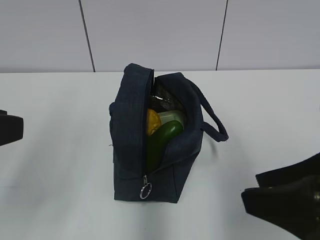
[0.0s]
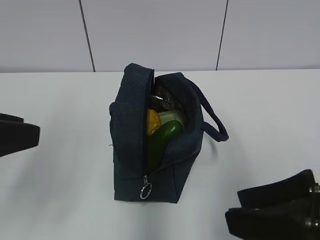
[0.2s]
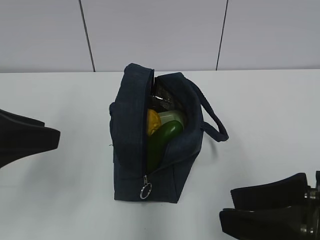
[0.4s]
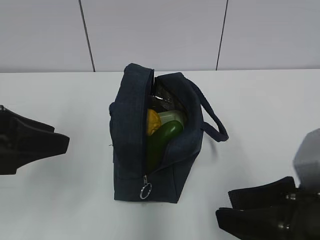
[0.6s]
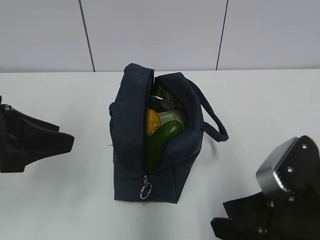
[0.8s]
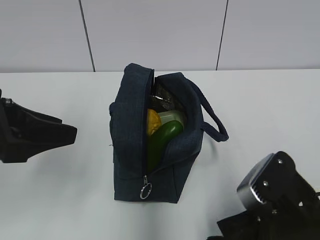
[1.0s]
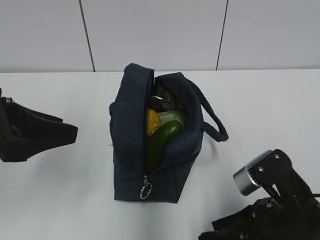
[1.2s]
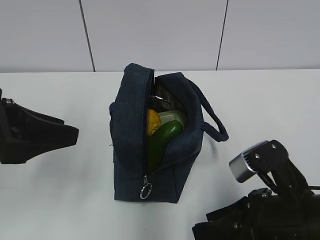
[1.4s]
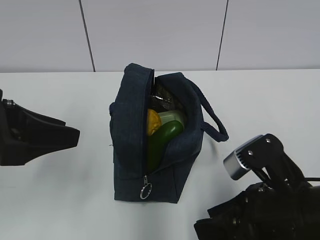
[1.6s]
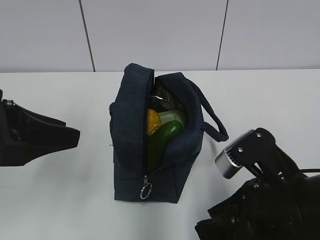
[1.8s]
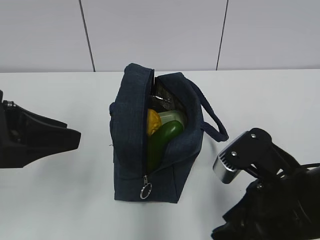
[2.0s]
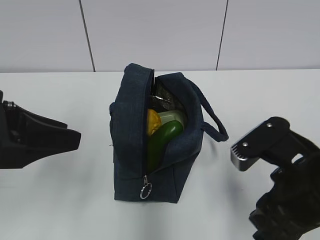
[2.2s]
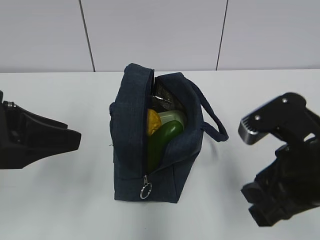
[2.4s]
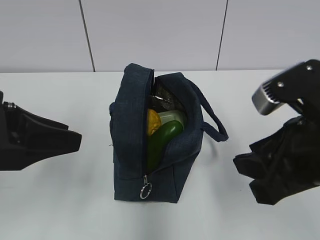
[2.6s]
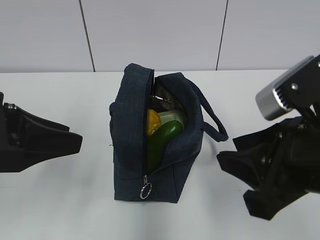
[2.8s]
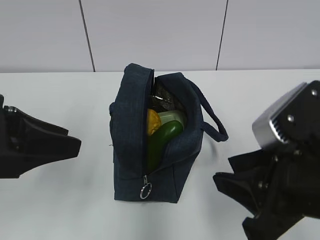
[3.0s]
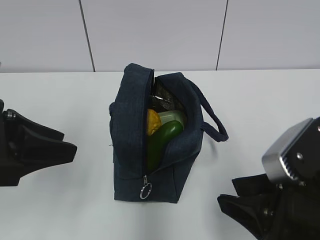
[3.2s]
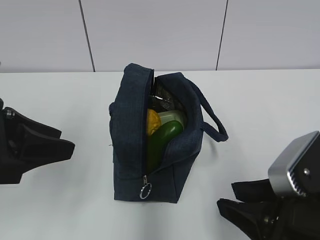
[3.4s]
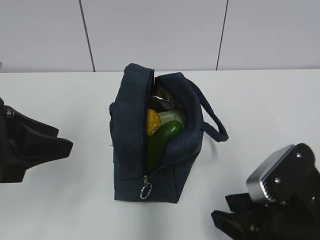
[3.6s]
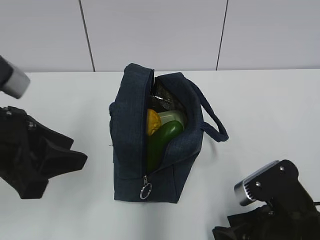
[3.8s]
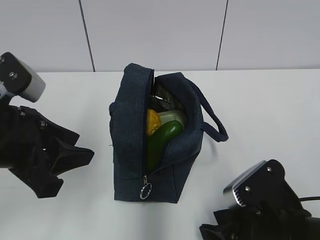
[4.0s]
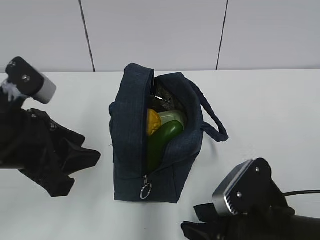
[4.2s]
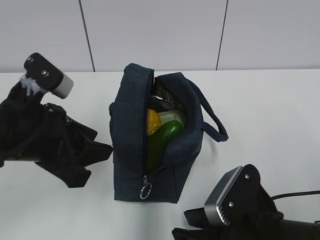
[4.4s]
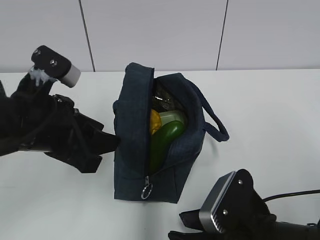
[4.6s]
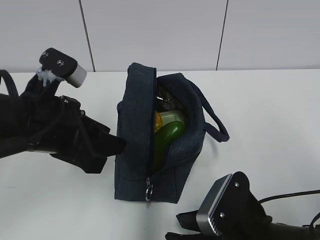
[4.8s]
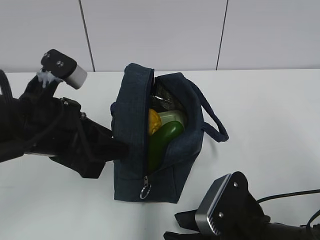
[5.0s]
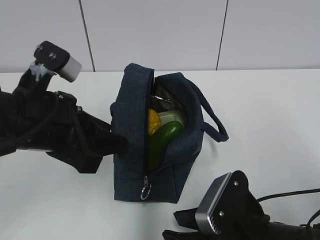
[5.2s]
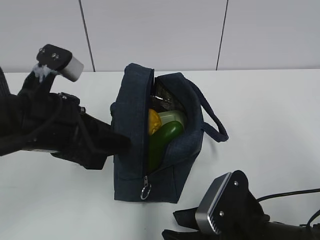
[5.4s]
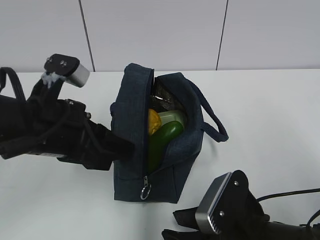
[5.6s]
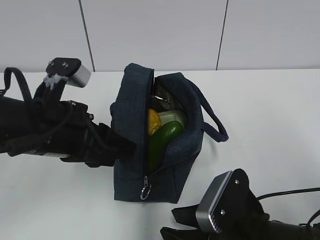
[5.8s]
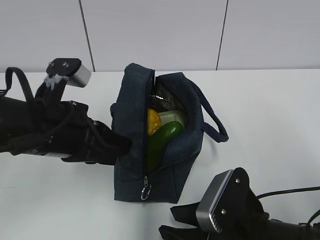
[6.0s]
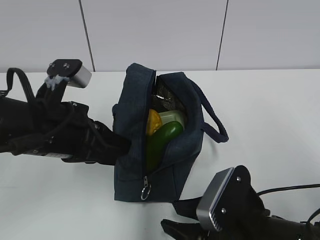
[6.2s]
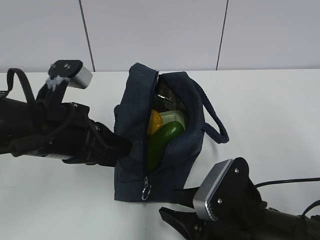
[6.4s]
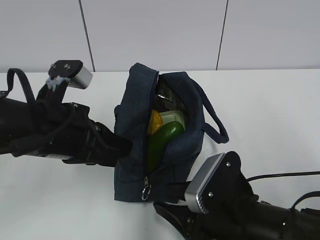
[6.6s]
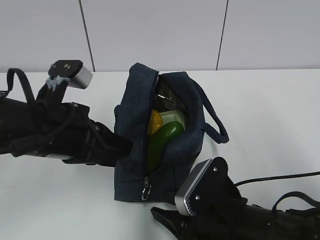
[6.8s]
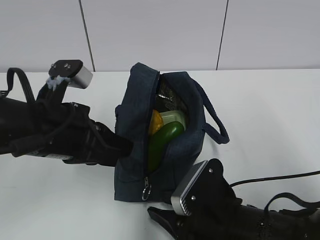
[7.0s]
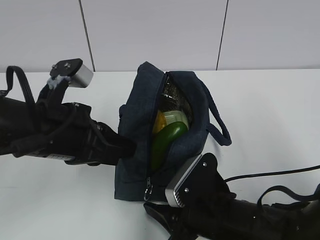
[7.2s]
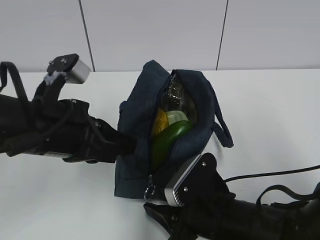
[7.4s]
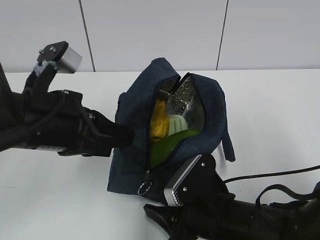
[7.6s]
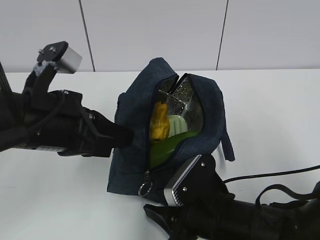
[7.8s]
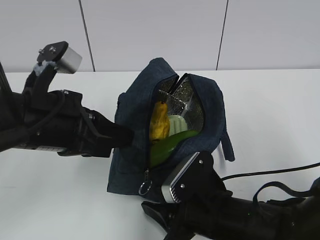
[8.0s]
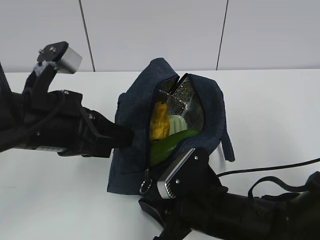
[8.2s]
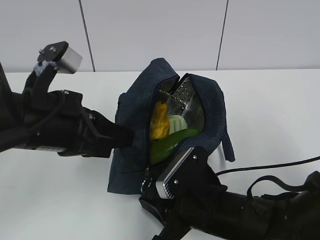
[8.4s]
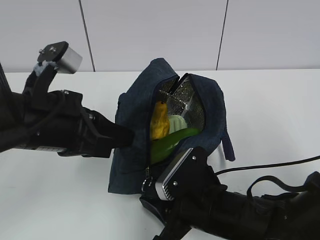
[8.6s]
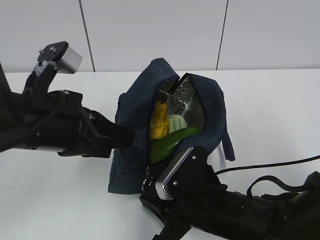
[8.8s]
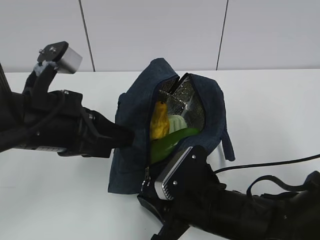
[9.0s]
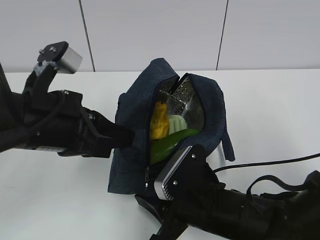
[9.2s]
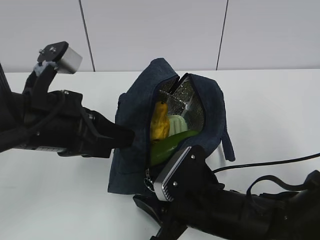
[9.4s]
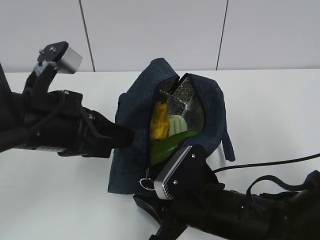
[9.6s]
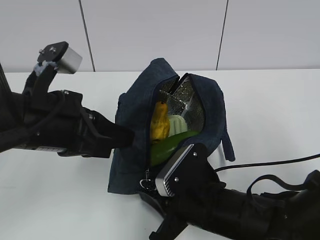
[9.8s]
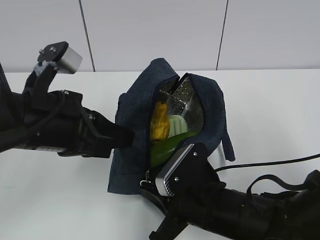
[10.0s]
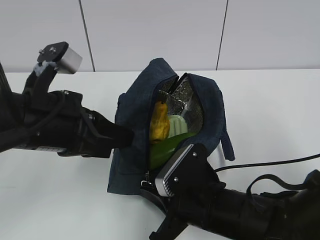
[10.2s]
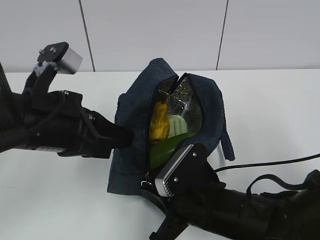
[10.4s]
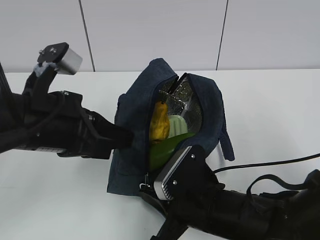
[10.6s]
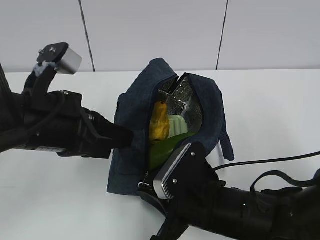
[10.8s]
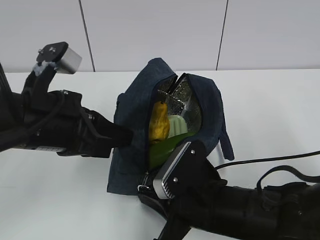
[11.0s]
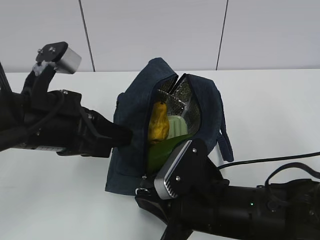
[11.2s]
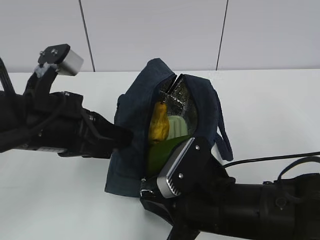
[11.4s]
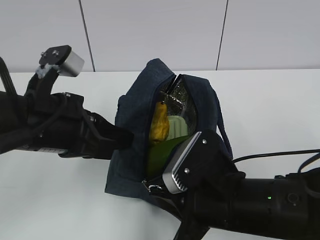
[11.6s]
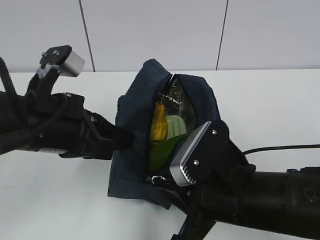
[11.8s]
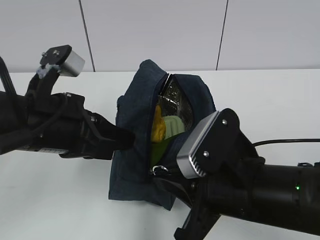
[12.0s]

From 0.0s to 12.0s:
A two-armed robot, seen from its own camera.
Step, from 0.0s to 6.0s: Grab the lunch bag with your left hand.
From 0.0s to 1.6s: The right gripper goes some 10 cm downward. The left gripper goes about 5 cm forward.
From 1.6s to 3.0s: The right gripper shifts about 5 cm upward.
From 3.0s to 4.4s: The left gripper moves roughly 5 cm; the right gripper shifts some 10 cm downward.
From 4.4s to 6.0s: The left gripper closes up.
From 6.0s to 7.6s: The right gripper ends up some 5 cm from where it was.
From 7.6s to 9.0s: The grippers stay close to where they were, moving slightly.
From 9.0s to 10.4s: The right gripper closes.
From 10.4s to 12.0s: The right gripper shifts approximately 10 cm upward.

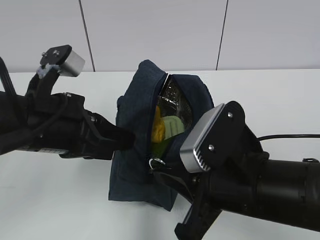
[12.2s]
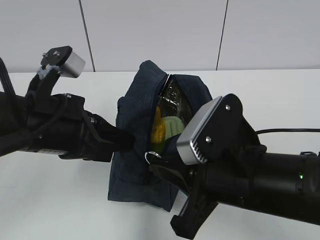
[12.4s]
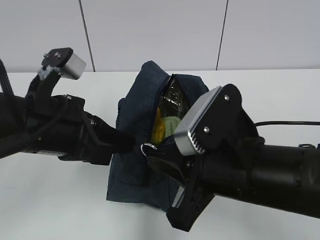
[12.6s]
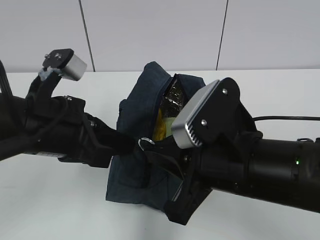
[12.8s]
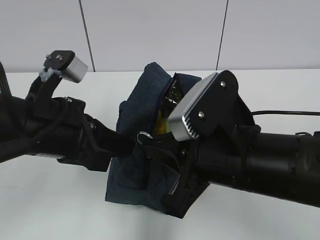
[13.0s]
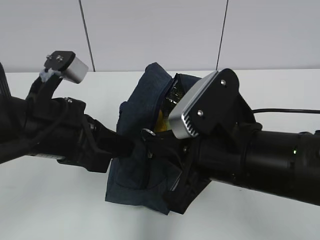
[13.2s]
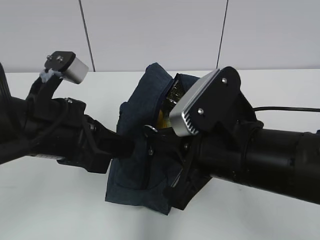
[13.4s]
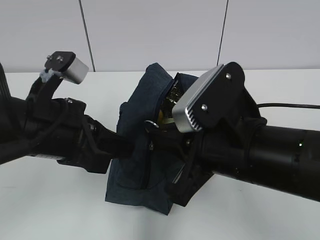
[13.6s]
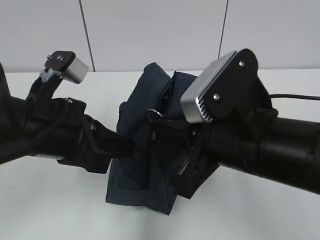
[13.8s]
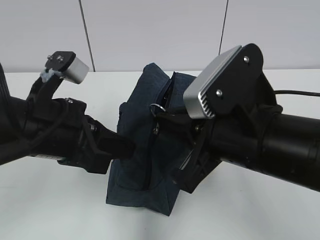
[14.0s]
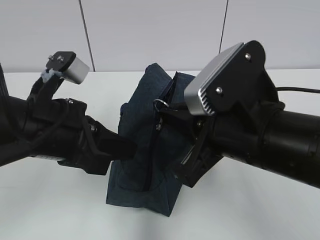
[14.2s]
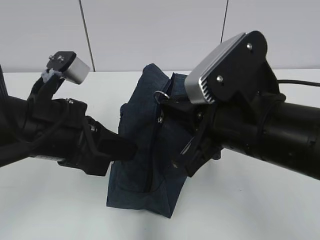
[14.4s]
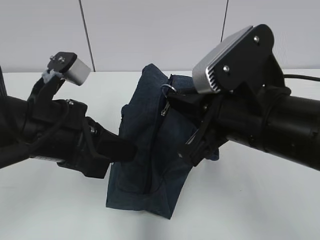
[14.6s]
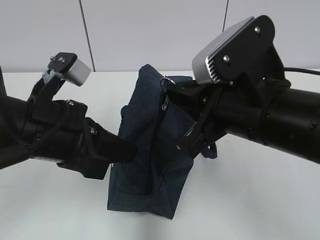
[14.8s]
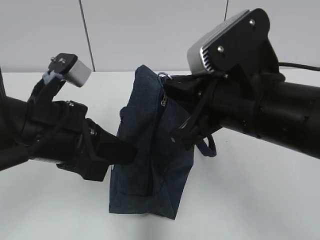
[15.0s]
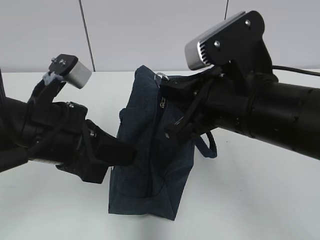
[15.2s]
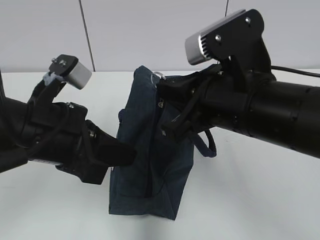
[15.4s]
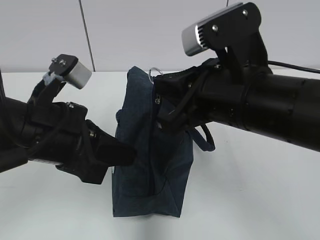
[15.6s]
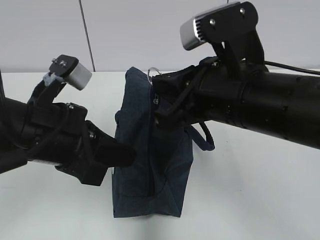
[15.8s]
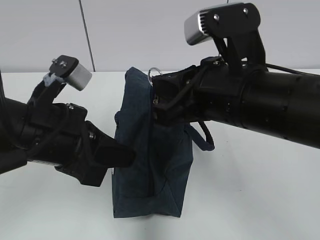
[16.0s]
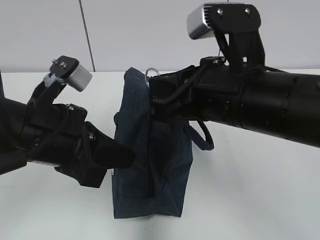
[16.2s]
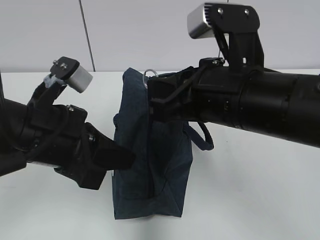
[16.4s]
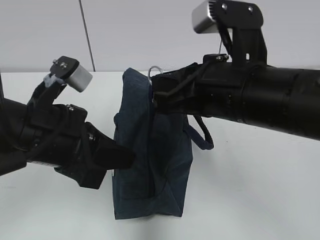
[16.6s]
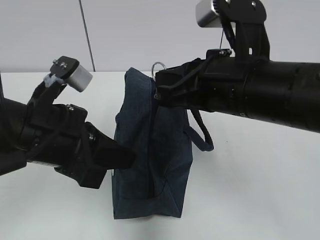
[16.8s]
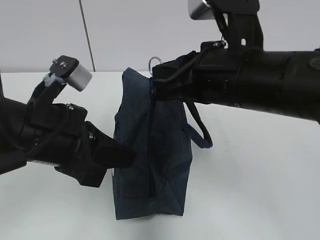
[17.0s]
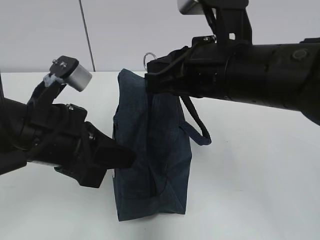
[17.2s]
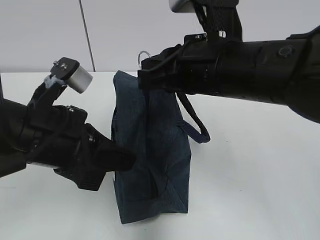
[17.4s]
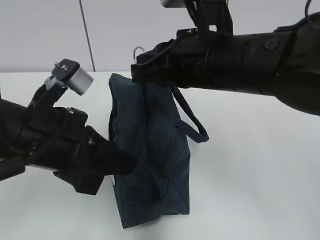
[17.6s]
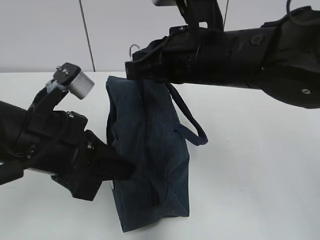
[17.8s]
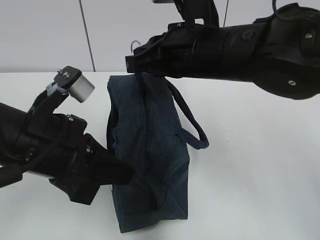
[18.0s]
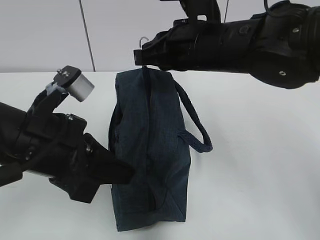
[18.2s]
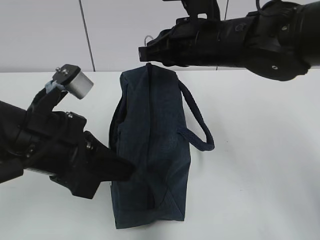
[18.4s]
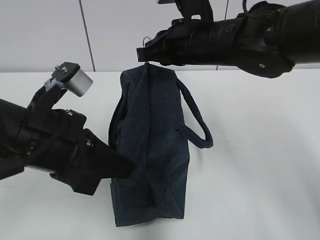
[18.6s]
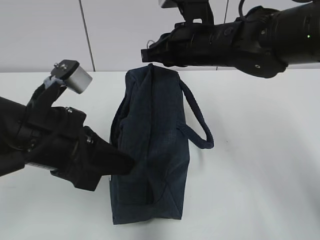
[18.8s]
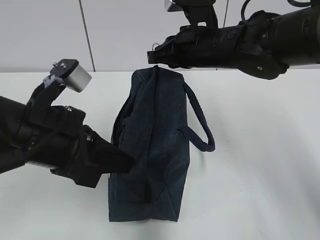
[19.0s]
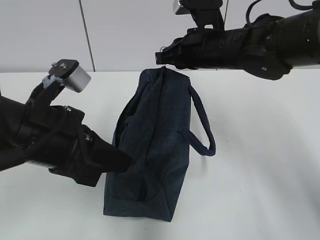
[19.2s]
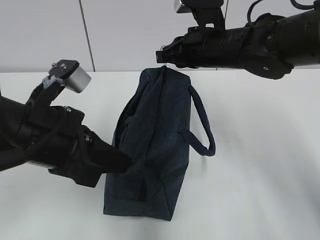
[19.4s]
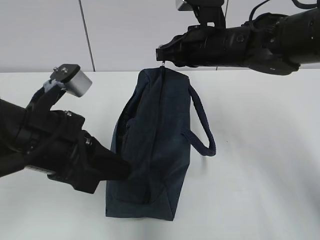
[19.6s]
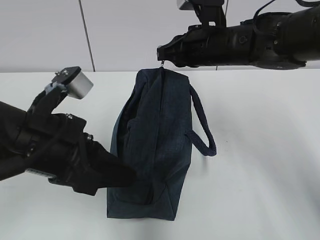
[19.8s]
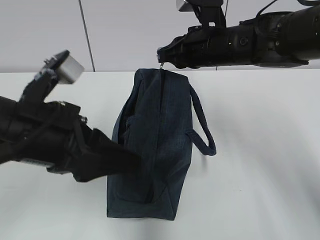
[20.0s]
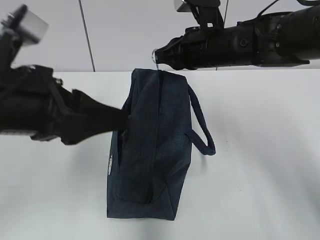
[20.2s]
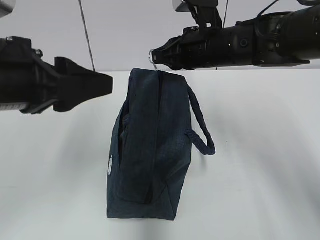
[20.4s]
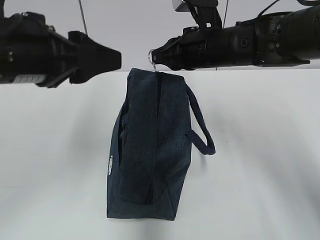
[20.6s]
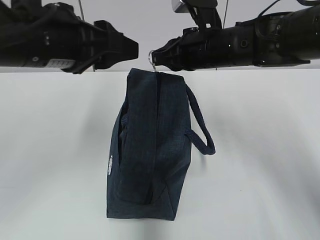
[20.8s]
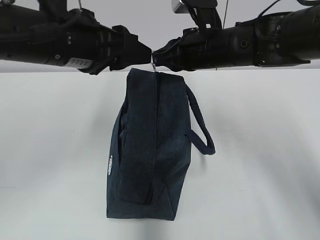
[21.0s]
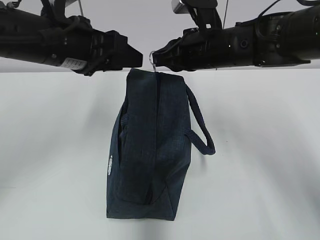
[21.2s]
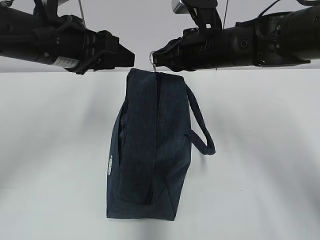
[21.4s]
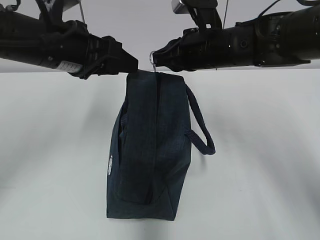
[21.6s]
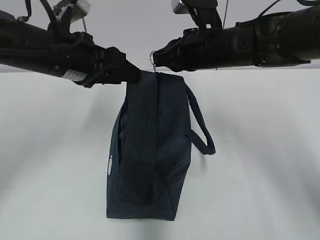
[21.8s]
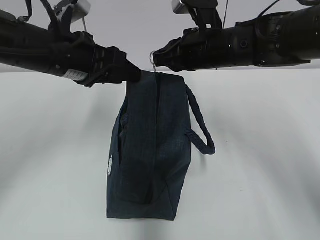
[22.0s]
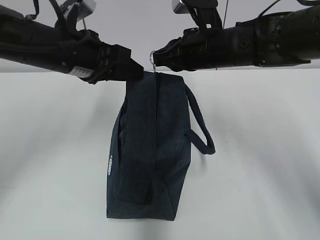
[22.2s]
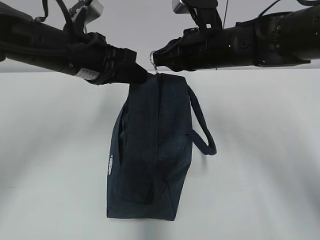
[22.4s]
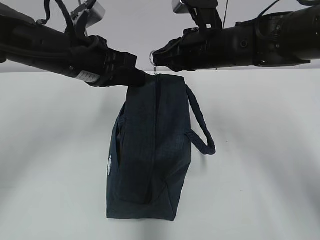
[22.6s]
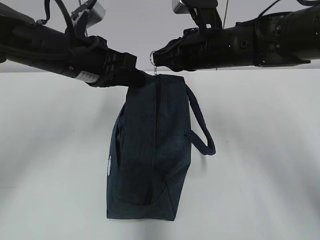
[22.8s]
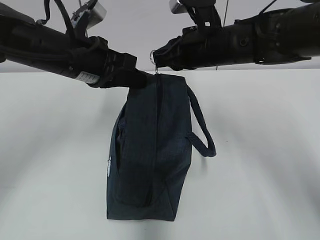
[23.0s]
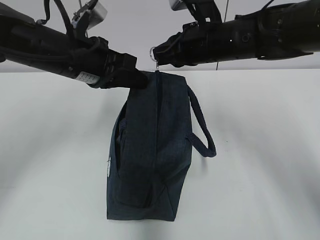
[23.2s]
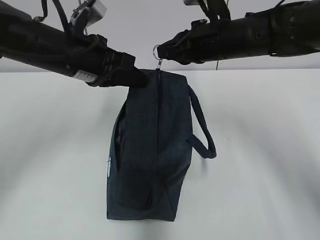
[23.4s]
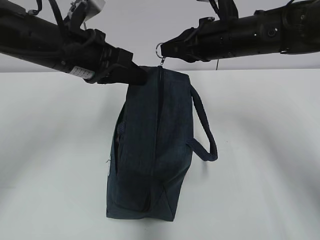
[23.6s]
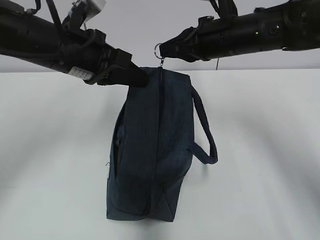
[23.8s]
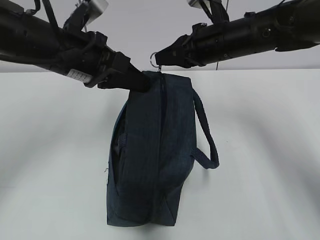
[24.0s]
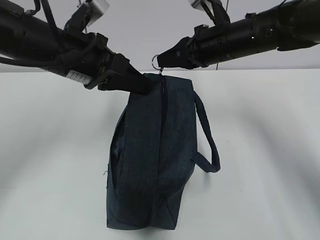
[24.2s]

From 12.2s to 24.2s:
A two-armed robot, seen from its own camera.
From 16.6s to 18.2s: The right gripper heads forward, covering roughly 10 cm.
From 18.2s to 19.8s: The right gripper shifts about 5 cm forward.
From 19.8s to 21.2s: The left gripper moves forward and upward, roughly 15 cm, and opens up.
From 21.2s to 22.6s: The left gripper closes its fingers.
From 22.6s to 24.2s: The grippers stay close to where they were, moving slightly.
